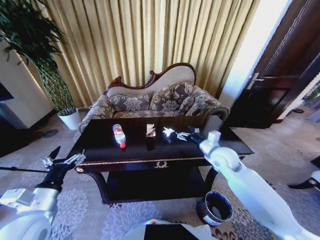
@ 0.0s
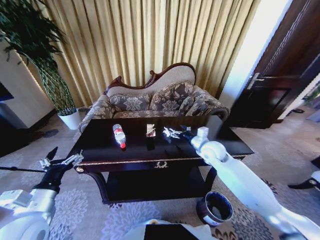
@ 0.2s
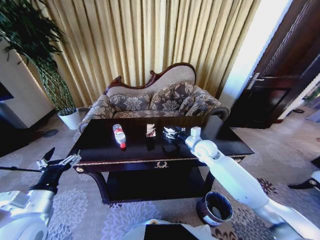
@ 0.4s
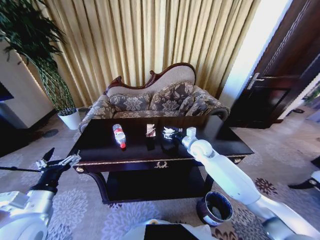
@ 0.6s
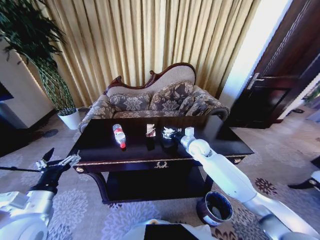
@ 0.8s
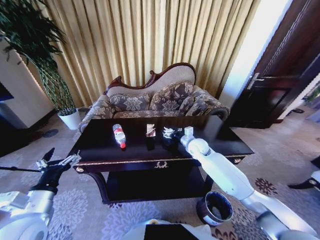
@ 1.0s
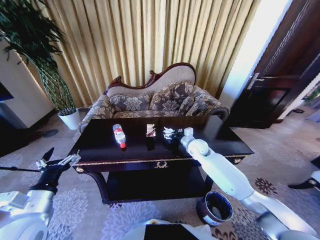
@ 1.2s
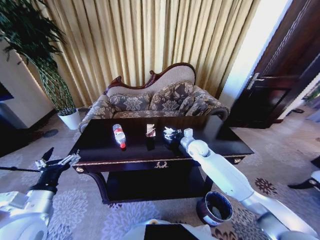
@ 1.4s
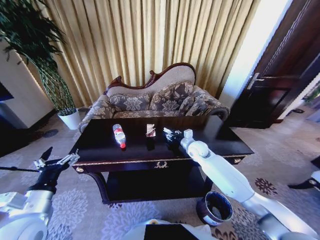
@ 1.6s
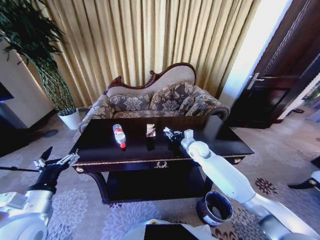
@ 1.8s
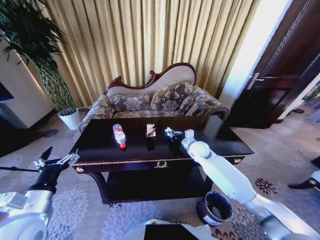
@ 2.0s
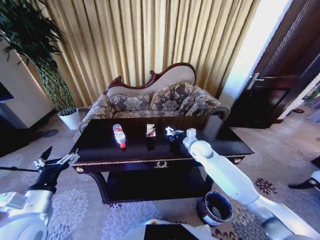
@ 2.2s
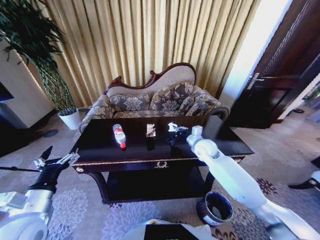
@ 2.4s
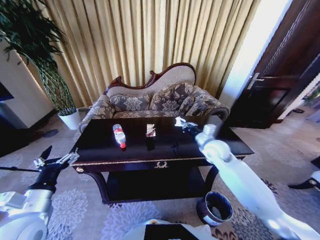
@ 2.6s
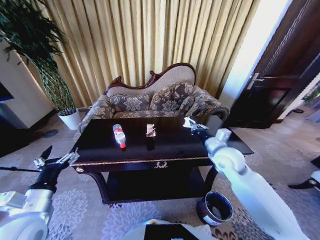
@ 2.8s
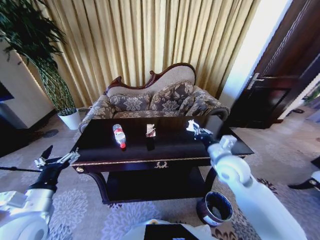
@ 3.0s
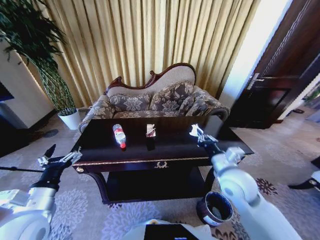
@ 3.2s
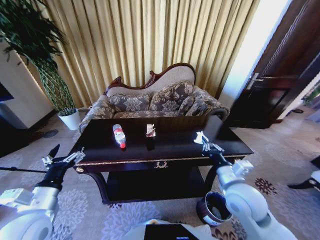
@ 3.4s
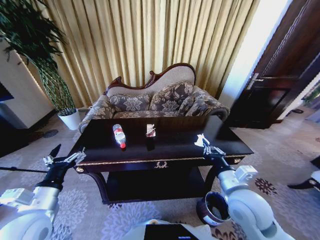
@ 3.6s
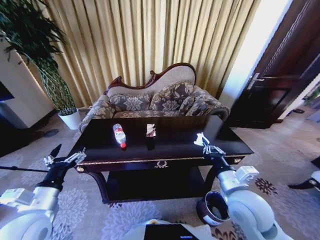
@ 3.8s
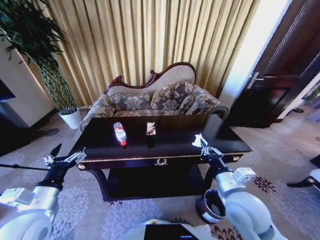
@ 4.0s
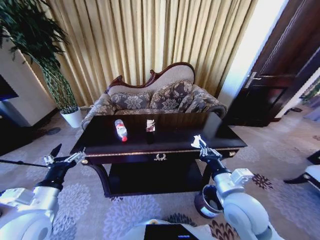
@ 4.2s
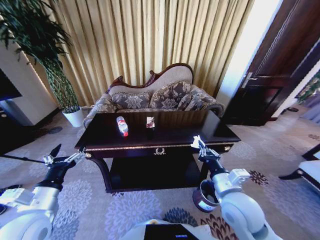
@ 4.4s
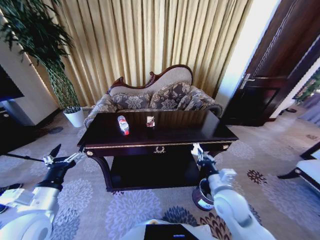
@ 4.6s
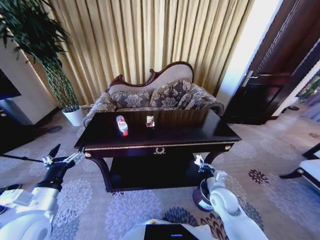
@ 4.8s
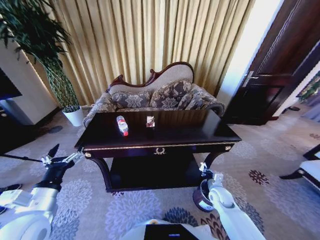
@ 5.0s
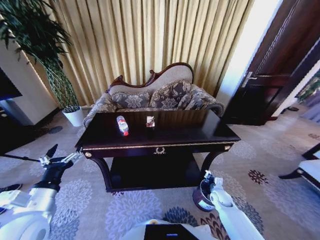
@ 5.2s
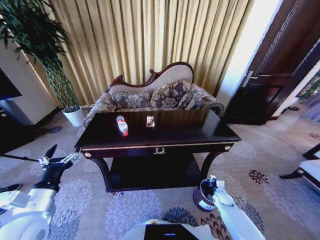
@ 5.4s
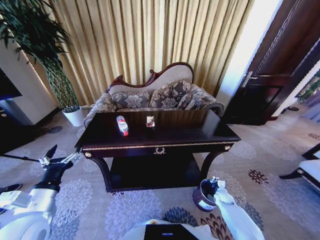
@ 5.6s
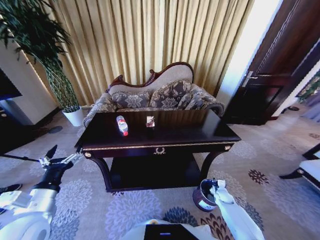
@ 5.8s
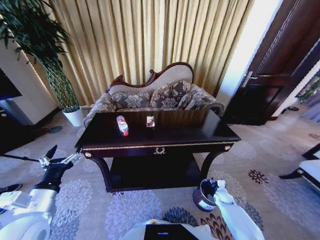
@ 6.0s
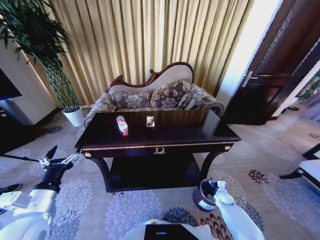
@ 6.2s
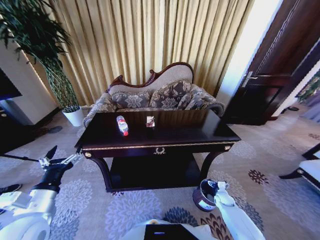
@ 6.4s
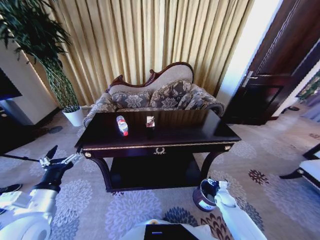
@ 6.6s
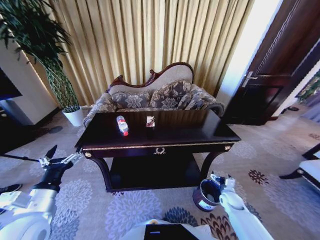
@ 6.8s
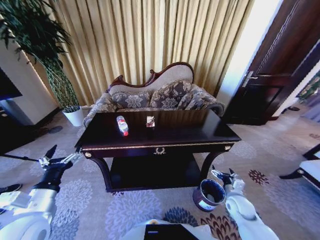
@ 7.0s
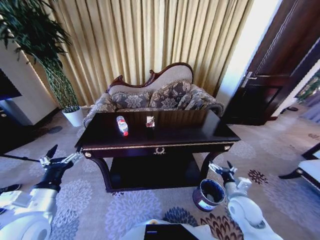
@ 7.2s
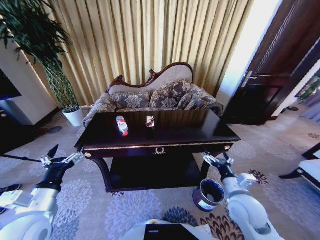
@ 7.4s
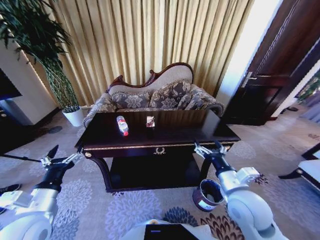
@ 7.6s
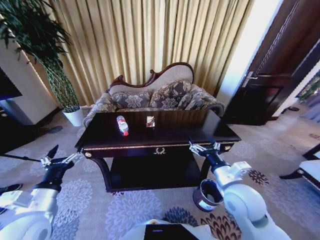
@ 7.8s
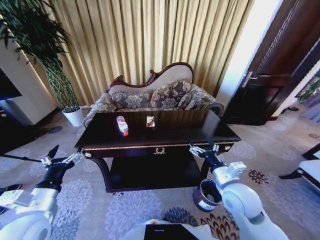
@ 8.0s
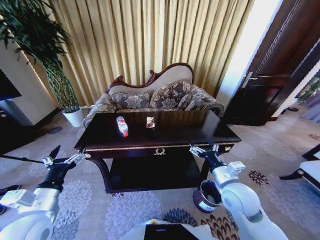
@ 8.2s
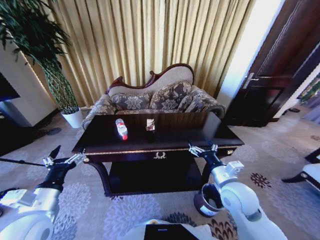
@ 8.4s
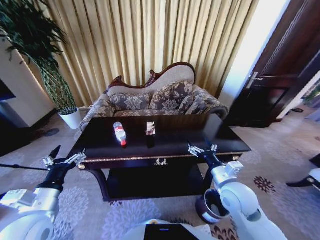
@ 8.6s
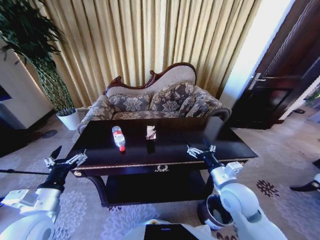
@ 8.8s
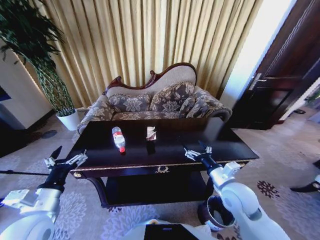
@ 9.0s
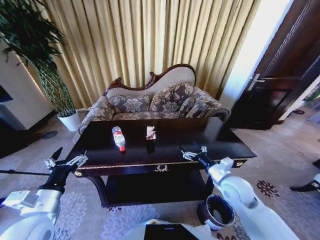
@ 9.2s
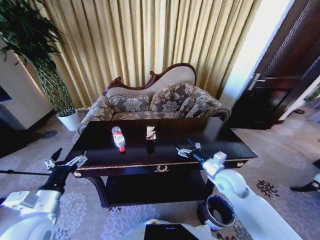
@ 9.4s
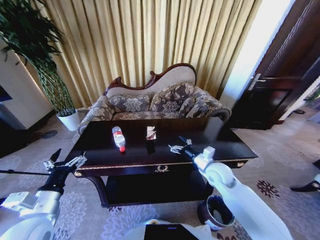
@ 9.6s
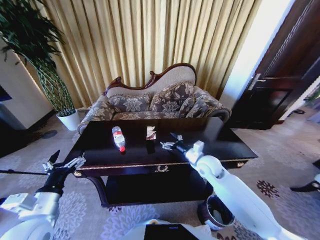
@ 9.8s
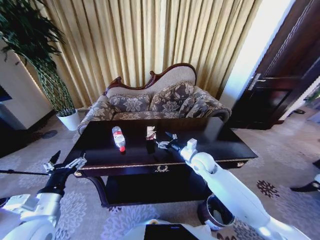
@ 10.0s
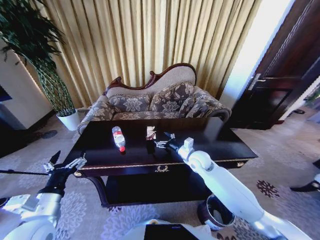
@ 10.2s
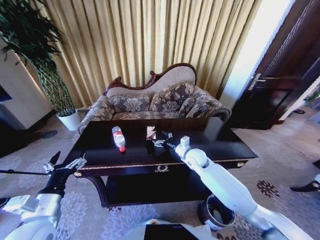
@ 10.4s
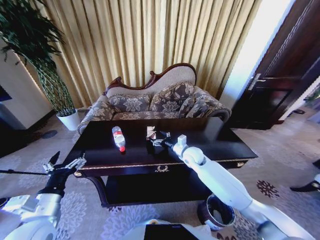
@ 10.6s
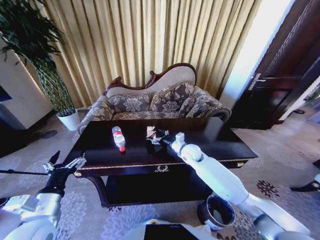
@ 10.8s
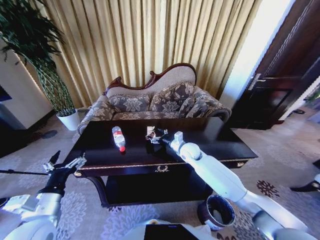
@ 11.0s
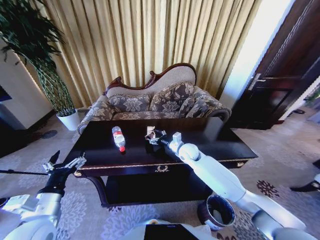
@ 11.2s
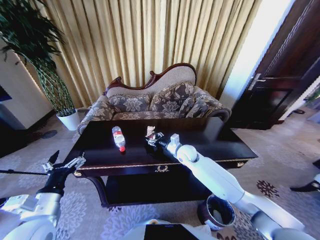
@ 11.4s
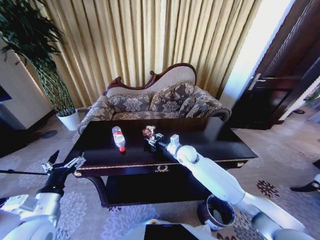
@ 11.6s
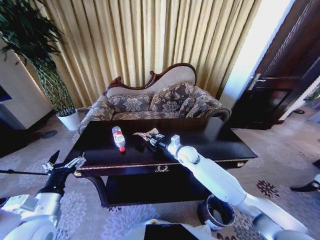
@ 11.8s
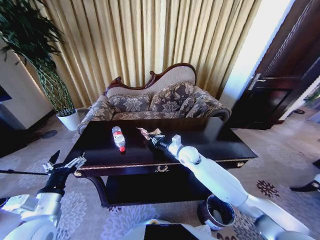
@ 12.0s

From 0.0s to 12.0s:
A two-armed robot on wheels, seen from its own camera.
Task of the whole recording: Move to the front of the table and place the trash on the table into the trash bin.
From 0.0s to 1.6s: The right gripper moves forward, downward and to the left, some 15 cm, and closes.
From 1.6s to 3.0s: The right gripper shifts approximately 20 cm backward and upward, and closes its fingers.
From 3.0s to 4.4s: The right gripper goes about 10 cm backward.
From 4.4s to 6.0s: The right gripper moves downward and to the right, approximately 40 cm, and opens its fingers.
From 6.0s to 7.6s: The right gripper travels upward and to the left by about 40 cm, and opens its fingers.
From 7.6s to 9.0s: The right gripper changes place by roughly 5 cm.
From 9.0s to 10.4s: The right gripper goes some 20 cm forward and to the left.
From 10.4s to 12.0s: The right gripper closes its fingers.

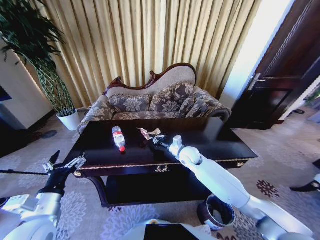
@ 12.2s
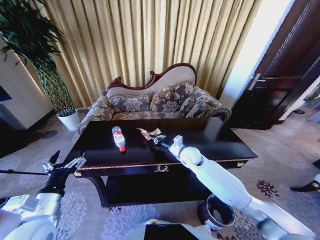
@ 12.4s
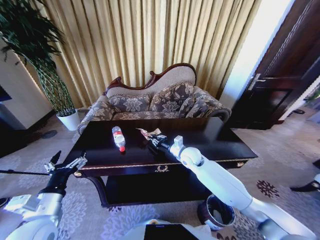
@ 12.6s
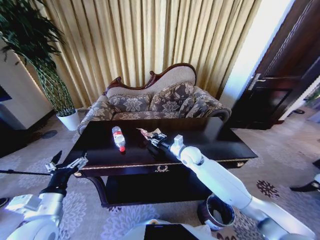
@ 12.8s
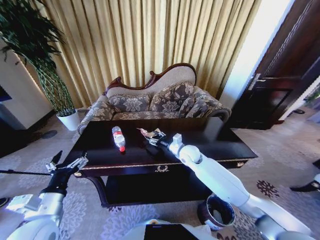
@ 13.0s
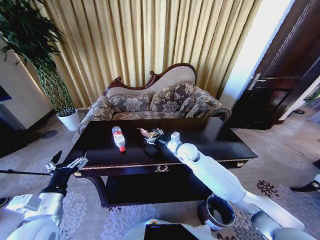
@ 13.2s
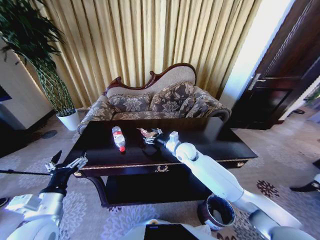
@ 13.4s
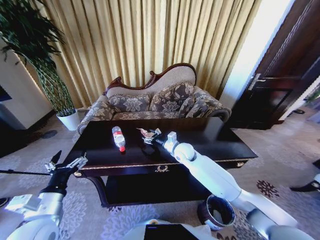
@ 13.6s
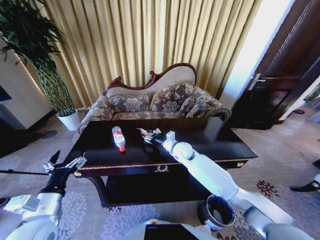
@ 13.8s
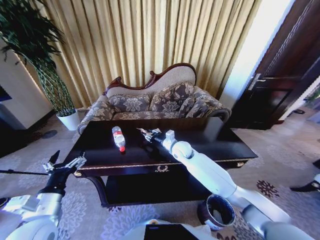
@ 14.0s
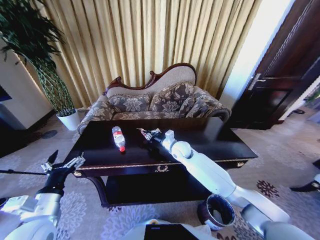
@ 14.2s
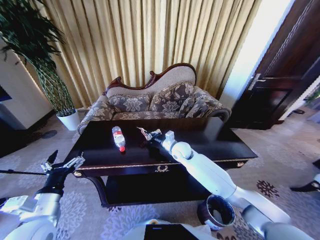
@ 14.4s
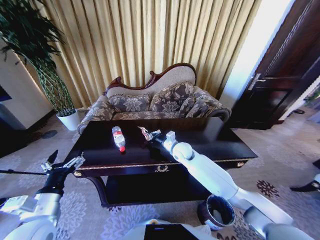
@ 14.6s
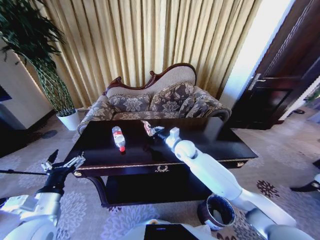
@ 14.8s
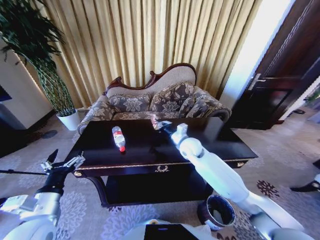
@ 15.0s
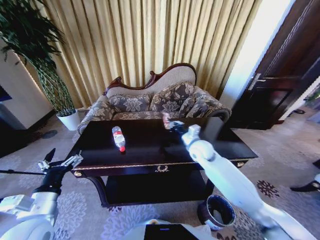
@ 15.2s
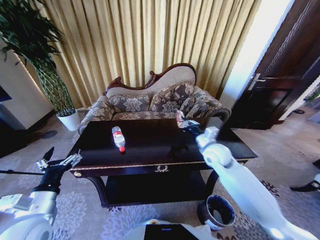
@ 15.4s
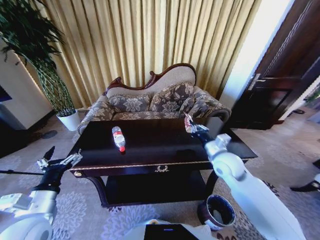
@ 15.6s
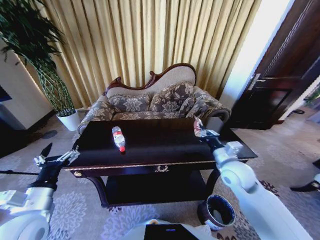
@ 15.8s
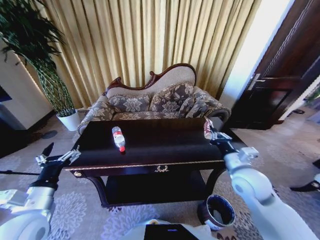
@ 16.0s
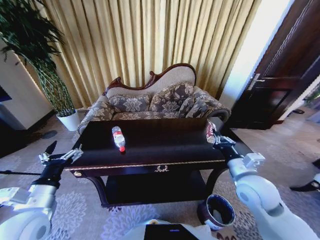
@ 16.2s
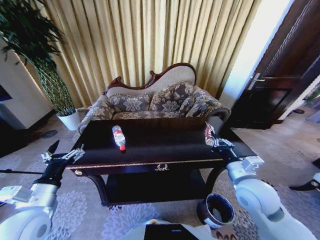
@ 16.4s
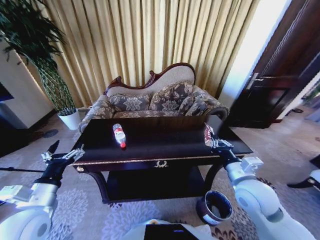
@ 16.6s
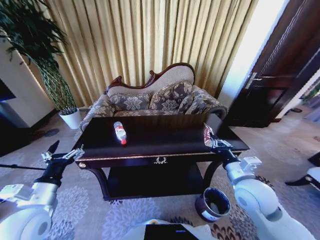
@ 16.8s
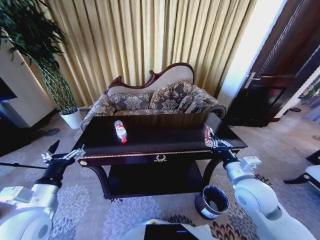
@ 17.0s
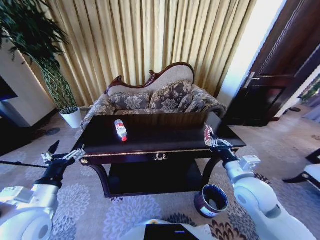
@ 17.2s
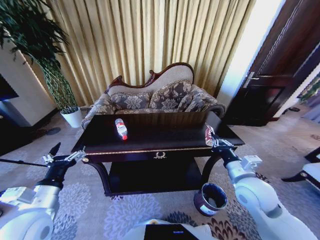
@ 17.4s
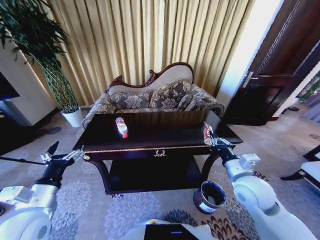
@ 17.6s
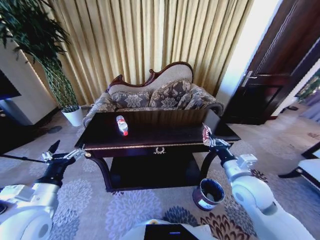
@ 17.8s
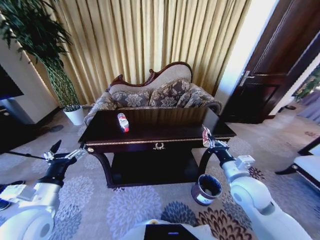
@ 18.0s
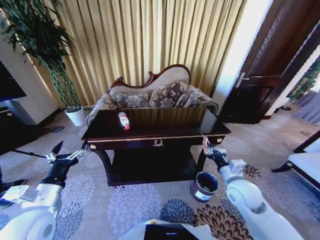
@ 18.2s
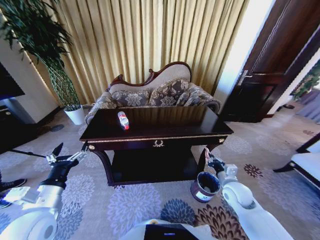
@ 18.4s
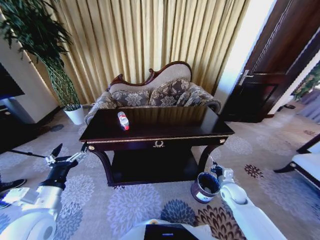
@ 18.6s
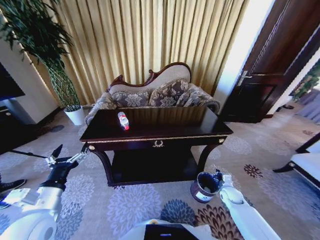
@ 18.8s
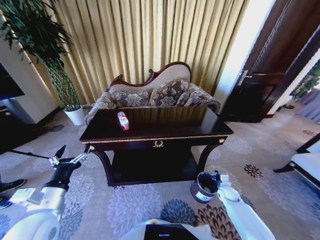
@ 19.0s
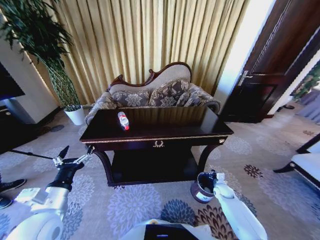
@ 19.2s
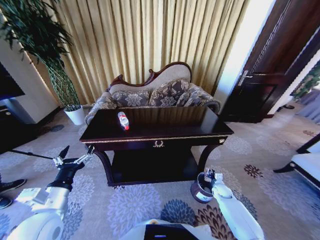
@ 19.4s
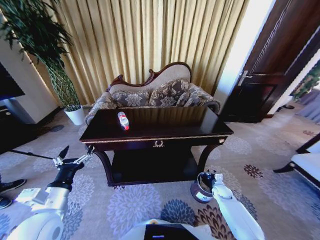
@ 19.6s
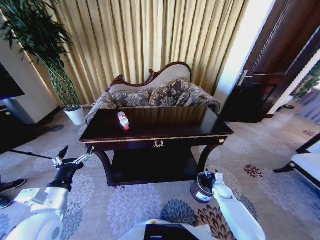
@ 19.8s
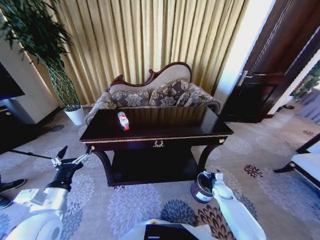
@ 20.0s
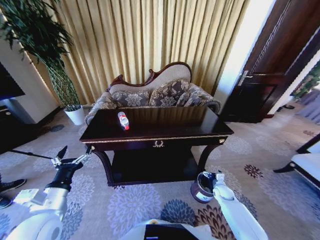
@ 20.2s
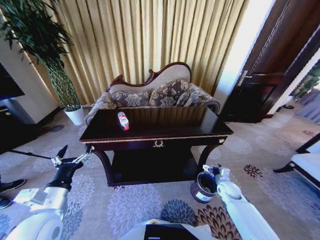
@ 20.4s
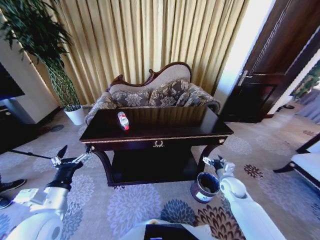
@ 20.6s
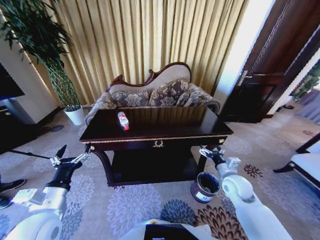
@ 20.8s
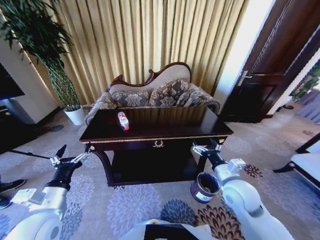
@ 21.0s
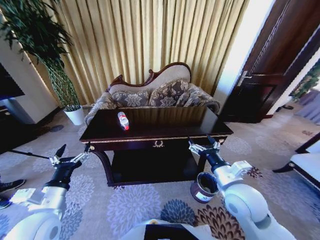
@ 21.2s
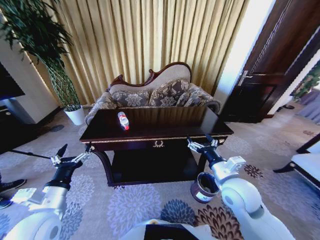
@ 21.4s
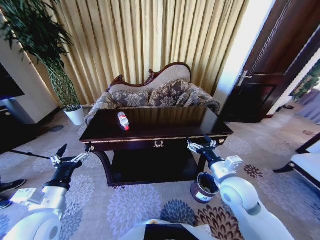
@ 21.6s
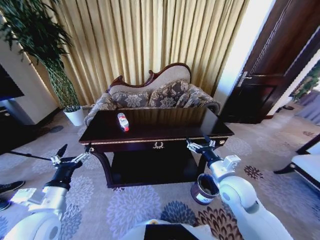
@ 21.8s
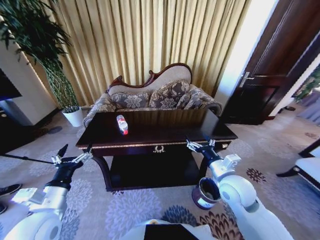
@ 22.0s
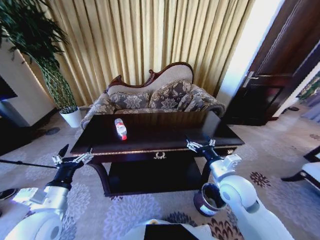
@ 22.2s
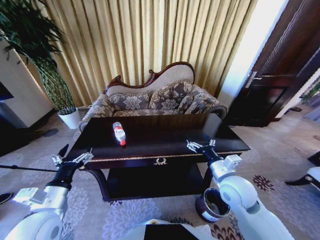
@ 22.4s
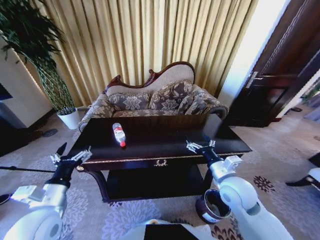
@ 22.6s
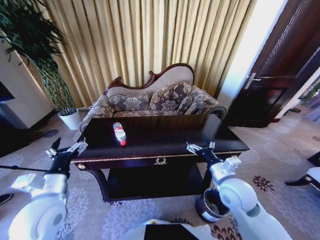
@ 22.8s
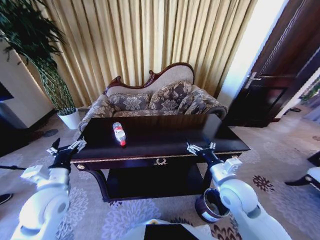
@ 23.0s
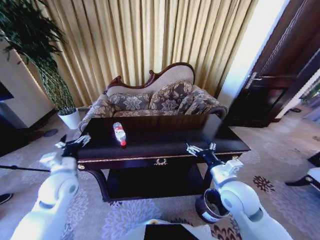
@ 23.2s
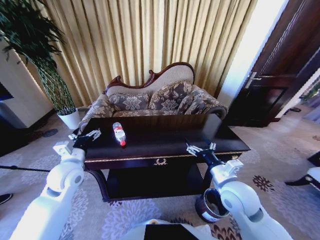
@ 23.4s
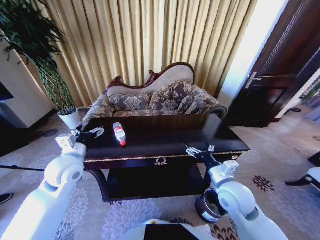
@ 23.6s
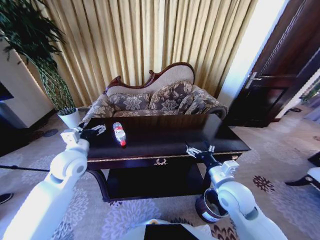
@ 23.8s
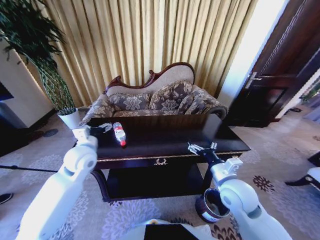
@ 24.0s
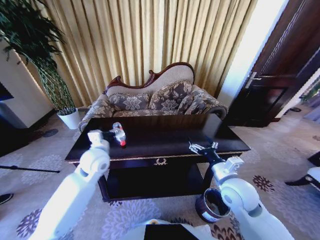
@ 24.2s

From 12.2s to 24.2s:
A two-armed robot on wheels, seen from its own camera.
Task of the whole recording: Move to the front of the table and place the trash on the table into the trash bin.
From 12.2s to 13.8s: The right gripper opens.
From 13.8s to 15.2s: The right gripper heads to the right and upward, covering roughly 10 cm, and closes its fingers.
From 15.2s to 16.6s: The right gripper goes roughly 20 cm backward and to the right.
From 16.6s to 18.2s: The right gripper goes some 5 cm downward.
From 18.2s to 19.8s: The right gripper travels downward by approximately 25 cm, and opens its fingers.
From 19.8s to 21.2s: The right gripper heads upward and to the left, covering some 35 cm, and opens.
From 22.6s to 24.2s: The left gripper shifts about 20 cm forward and to the right.
